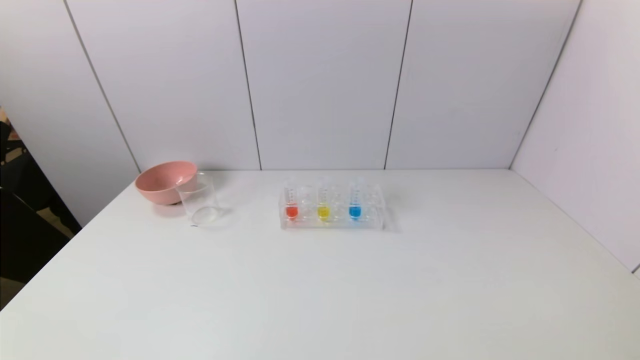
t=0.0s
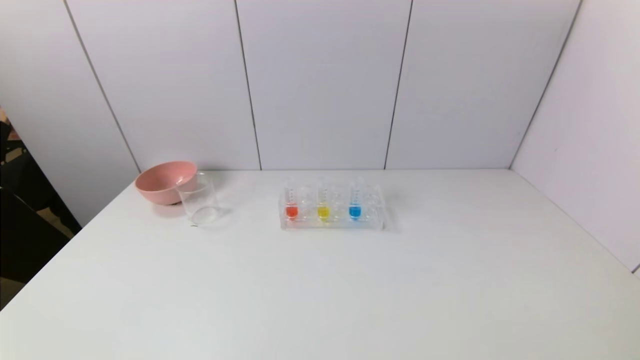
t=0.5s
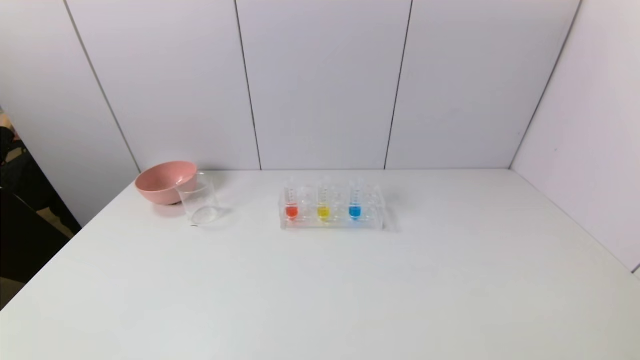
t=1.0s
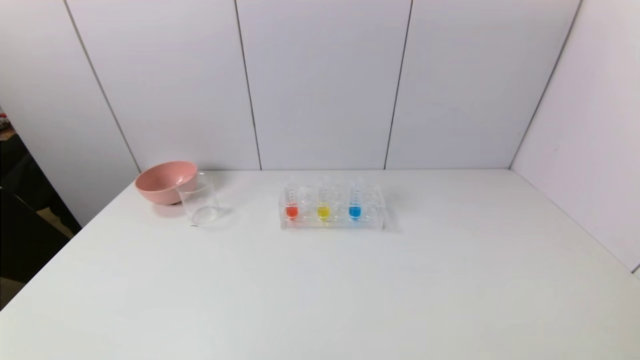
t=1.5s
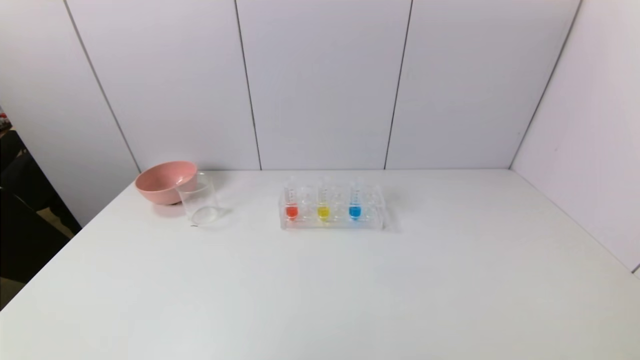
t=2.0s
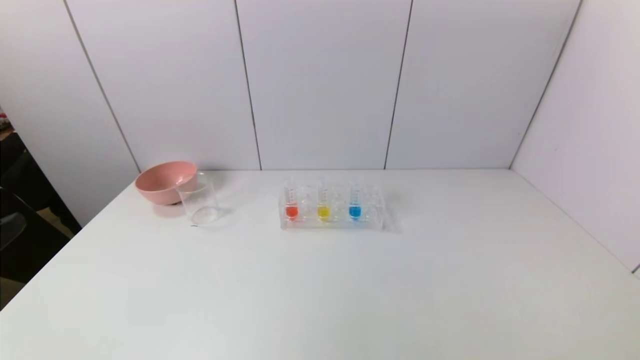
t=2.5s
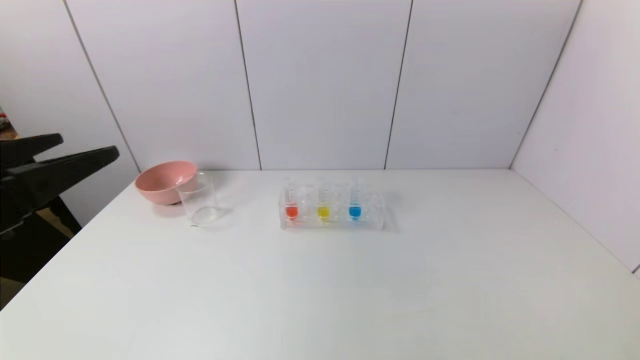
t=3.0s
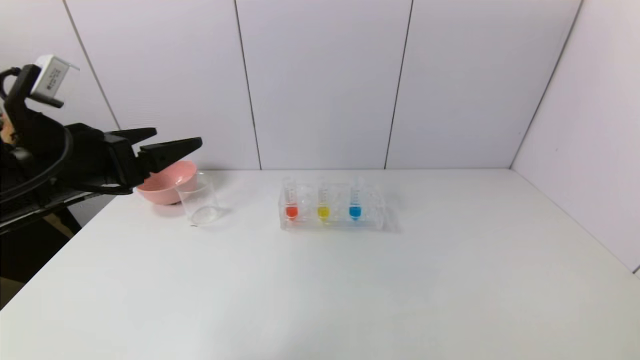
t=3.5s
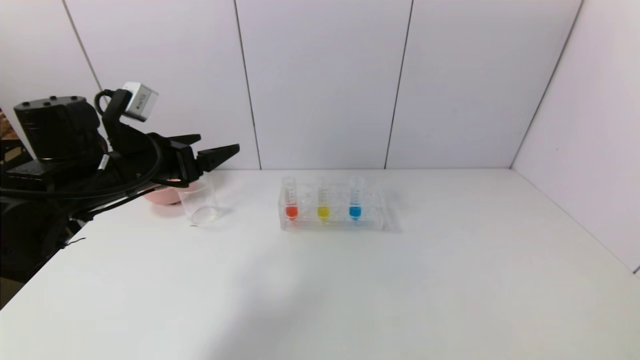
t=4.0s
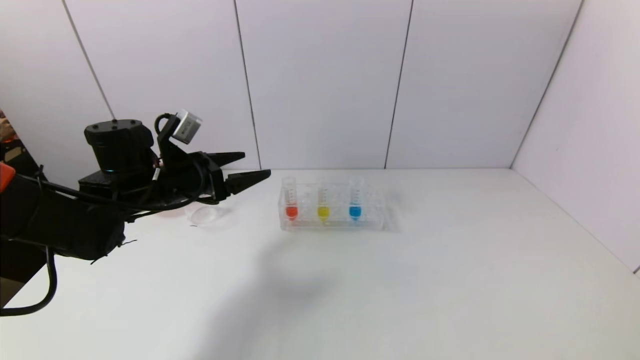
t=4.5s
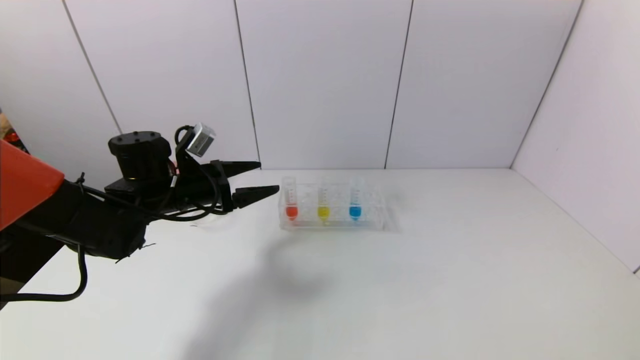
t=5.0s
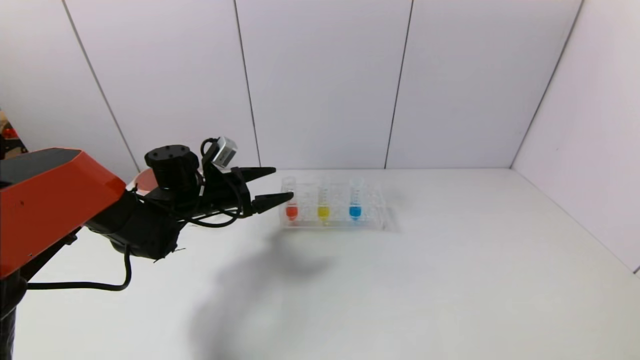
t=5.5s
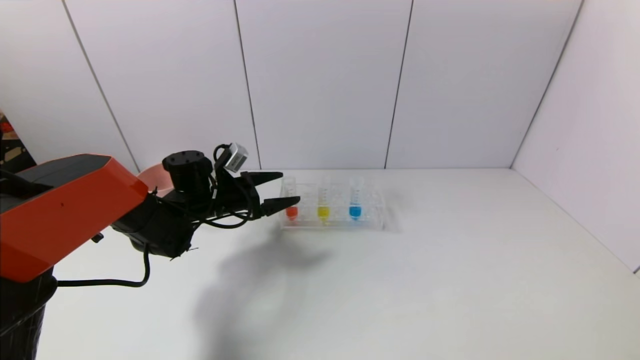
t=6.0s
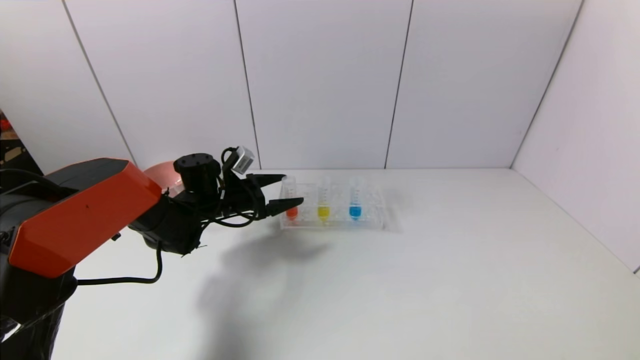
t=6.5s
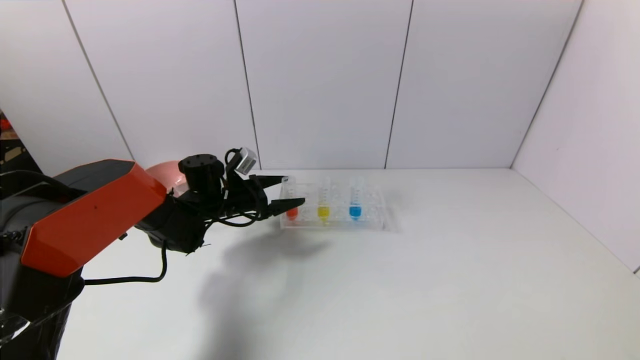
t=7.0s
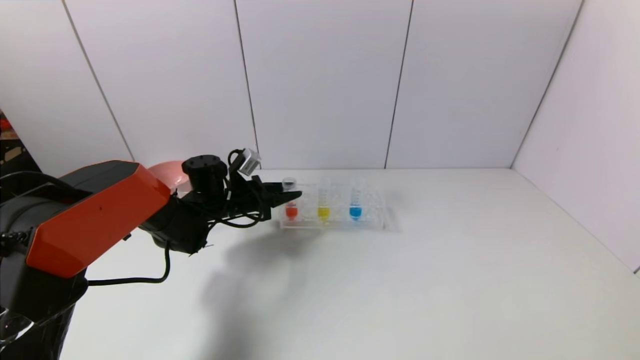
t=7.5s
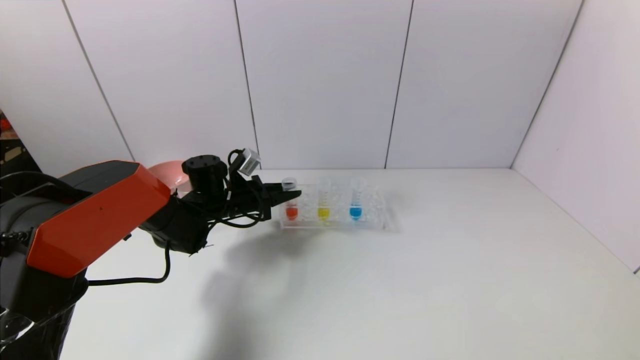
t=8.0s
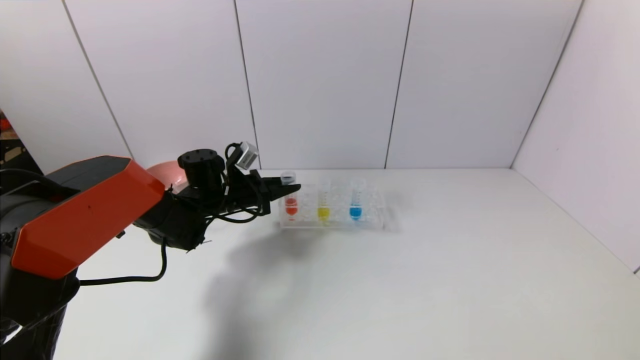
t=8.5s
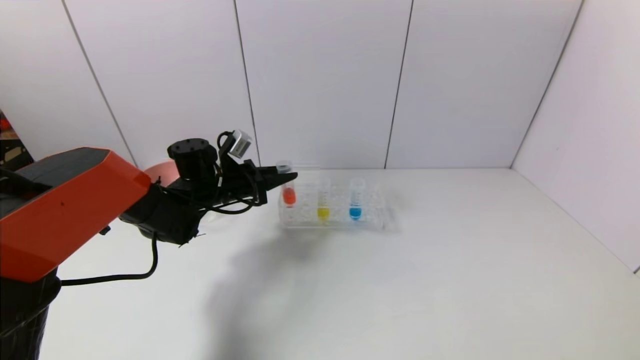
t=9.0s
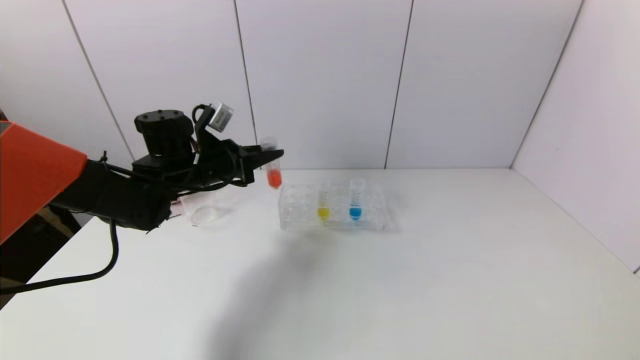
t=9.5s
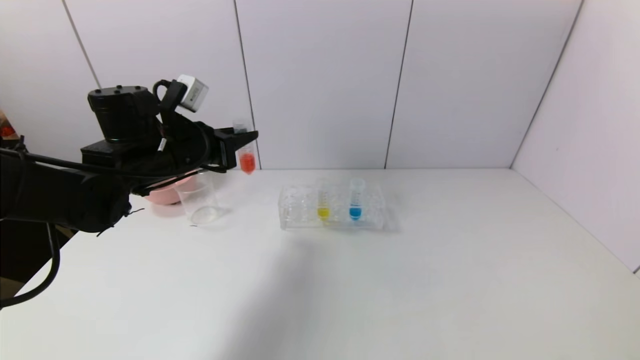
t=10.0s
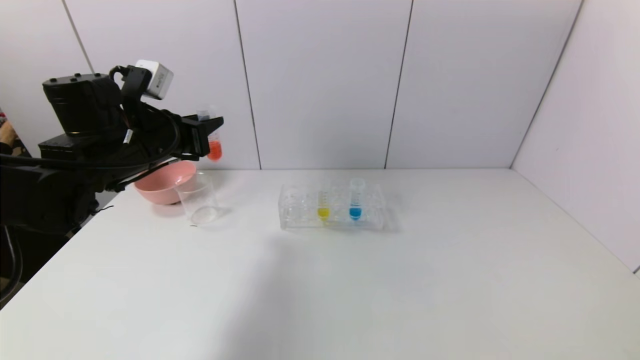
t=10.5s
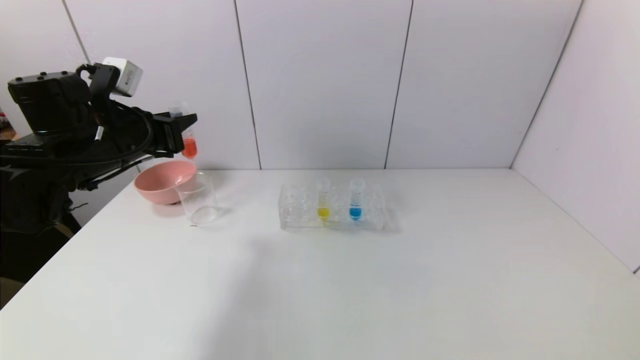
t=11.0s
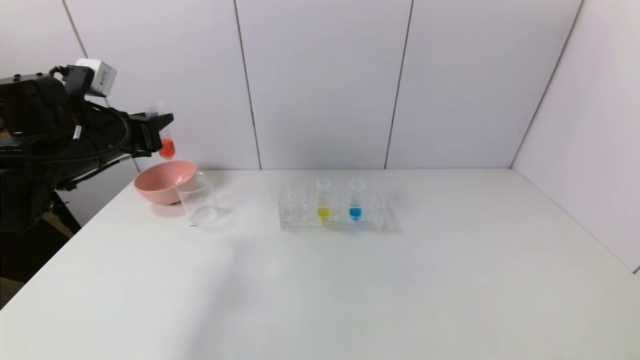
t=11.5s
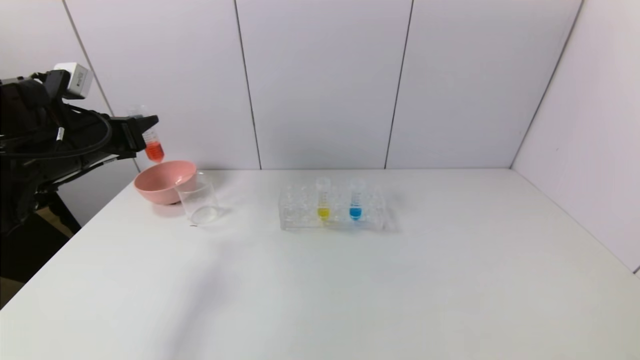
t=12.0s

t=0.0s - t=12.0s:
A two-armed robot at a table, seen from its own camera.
Task of the whole recording: pick up the test tube with red pigment and the test tube with blue pigment by grippers and pour them into the container.
Step, t=0.0s - t=7.5s: Grasp the red reagent with the left gripper.
t=2.0s - t=4.0s: The left gripper is displaced forward by some 35 cm.
t=4.0s - t=6.0s: The left gripper heads downward, forward and to the right, covering roughly 15 cm.
t=6.0s - t=8.0s: The left gripper closes.
t=8.0s - t=10.0s: The left gripper is displaced upward and backward by roughly 15 cm.
t=10.0s - t=12.0s: The left gripper heads to the left, covering some 10 cm.

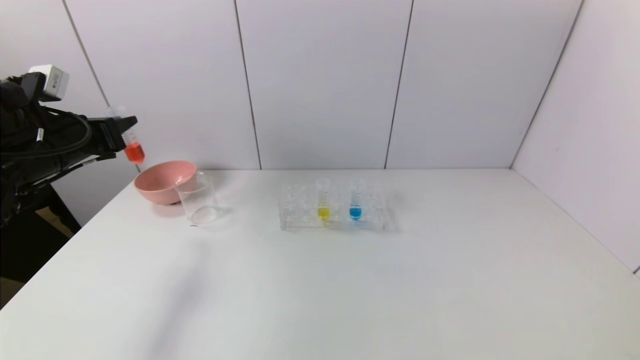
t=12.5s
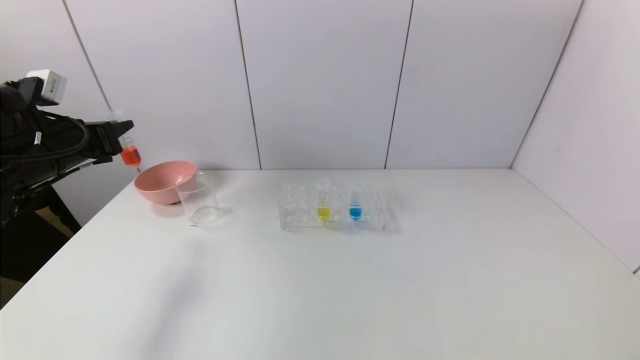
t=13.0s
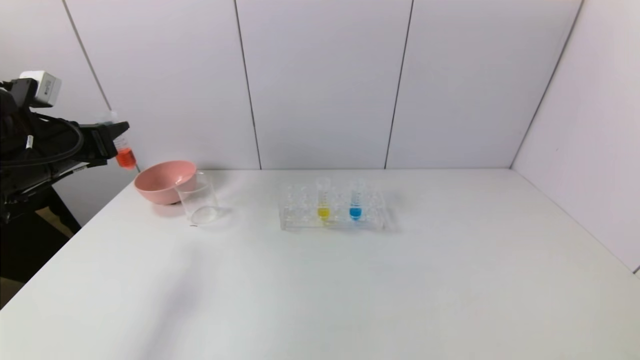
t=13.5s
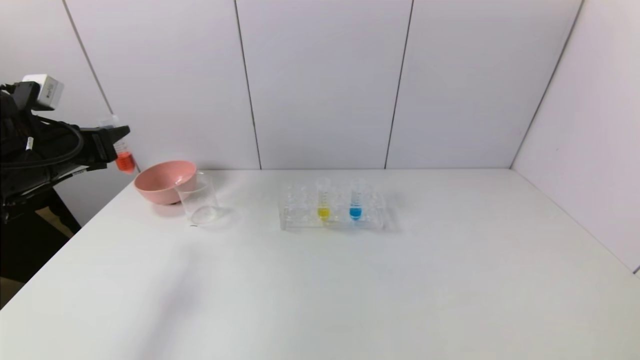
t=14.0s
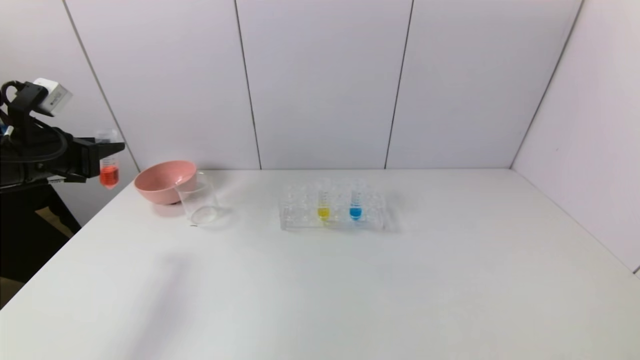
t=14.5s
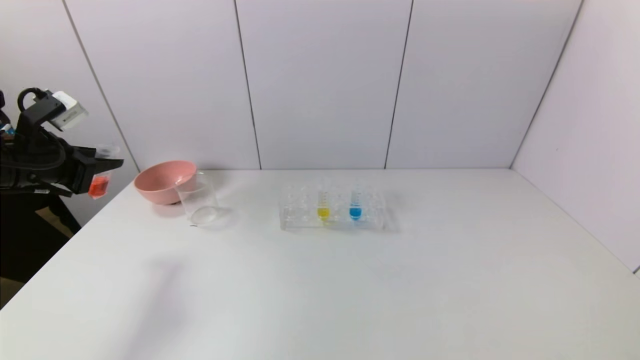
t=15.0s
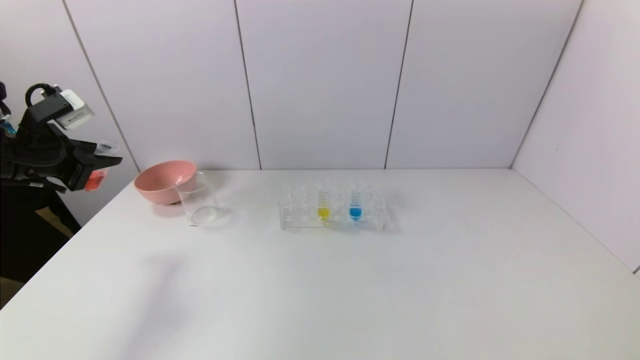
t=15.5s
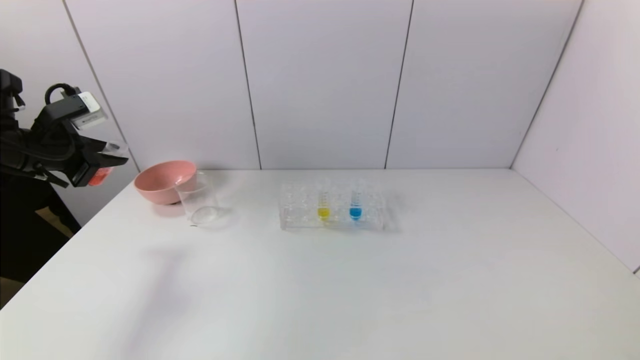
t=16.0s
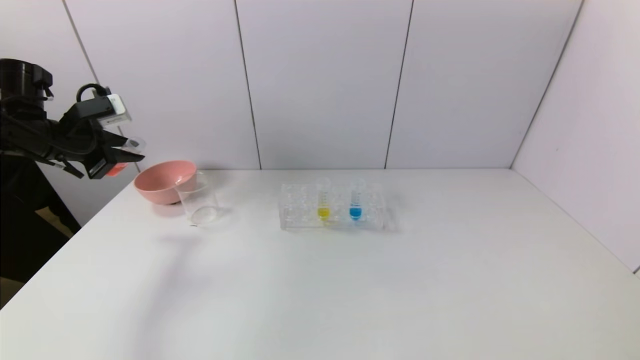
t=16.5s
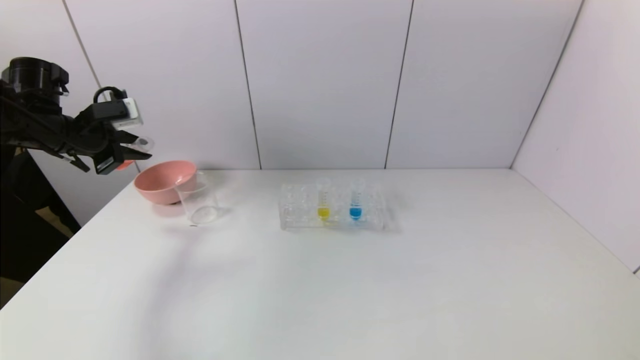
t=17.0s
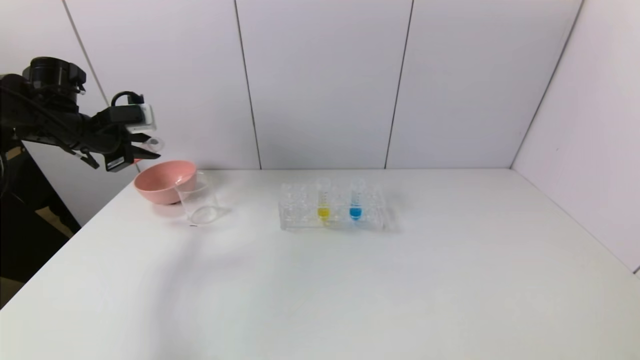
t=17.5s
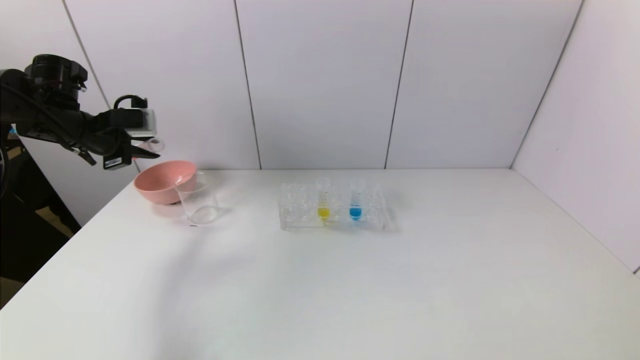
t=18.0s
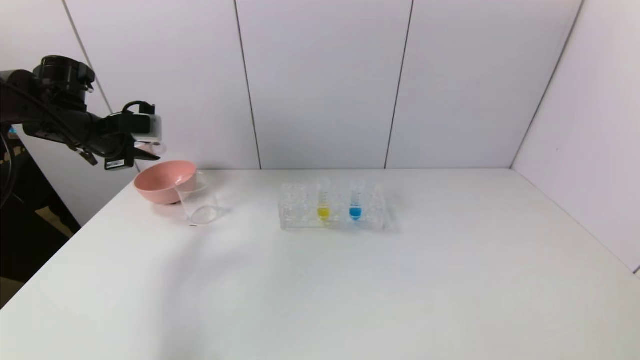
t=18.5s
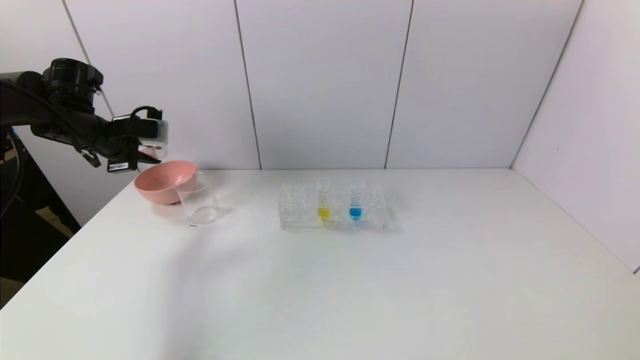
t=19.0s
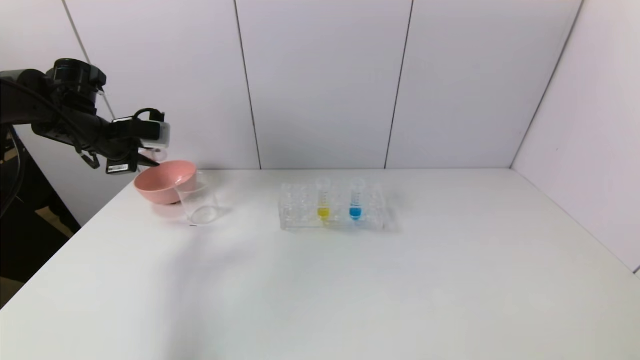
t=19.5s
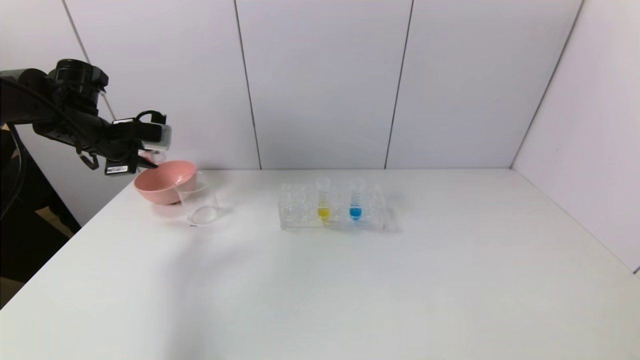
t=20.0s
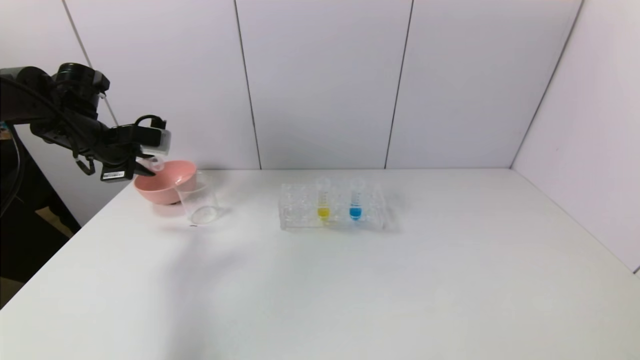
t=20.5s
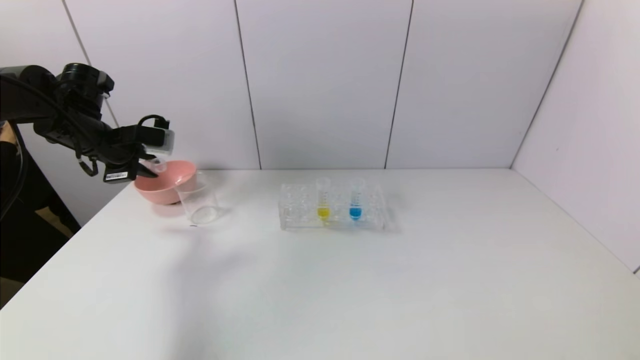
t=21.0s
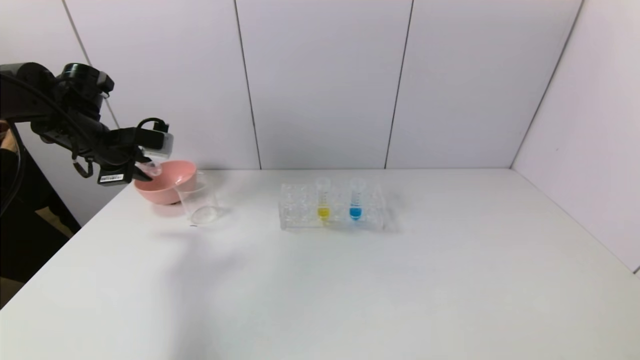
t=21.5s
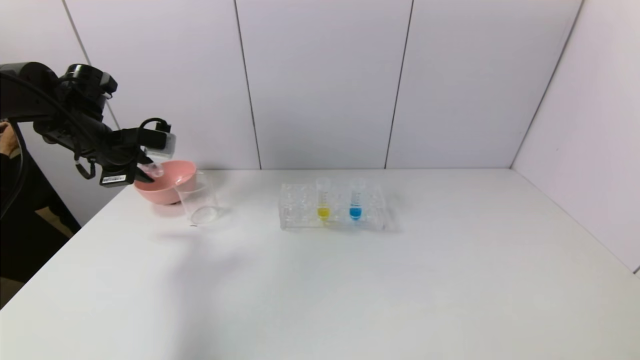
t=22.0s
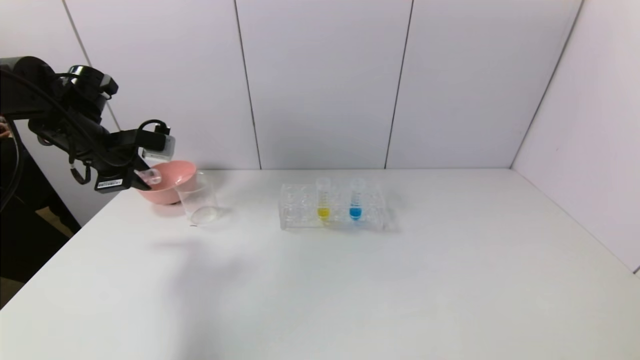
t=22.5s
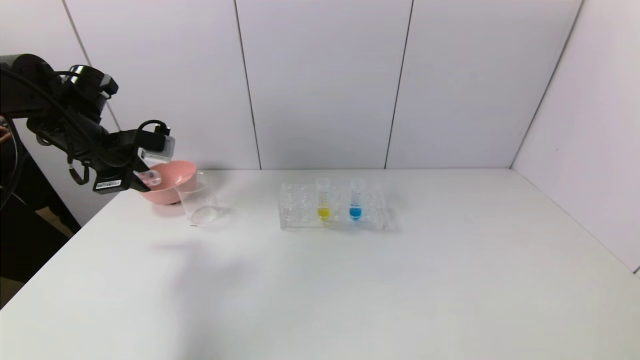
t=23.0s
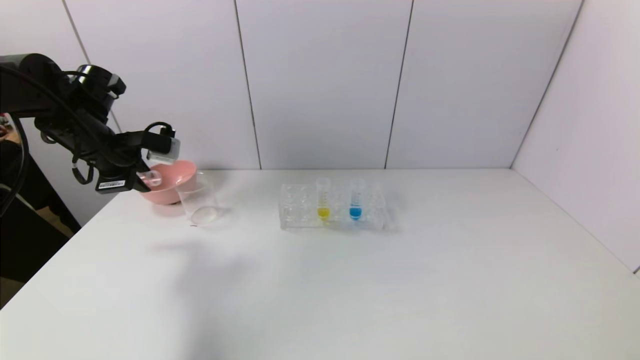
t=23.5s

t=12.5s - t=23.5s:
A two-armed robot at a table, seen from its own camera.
Task of the whole recording: pick up the test tube with red pigment and the test tube with blue pigment by grippers and pour them into the container.
t=16.0s - t=18.0s: The left gripper travels forward by some 10 cm.
t=18.0s - t=21.5s: There are only small adjustments of the grippers.
t=21.5s - t=23.5s: The grippers make only small movements.
